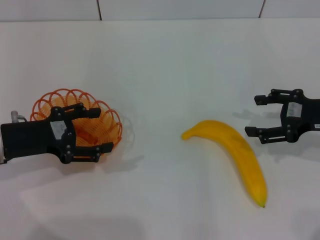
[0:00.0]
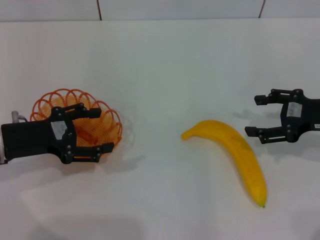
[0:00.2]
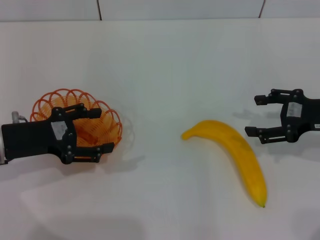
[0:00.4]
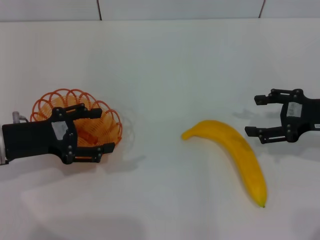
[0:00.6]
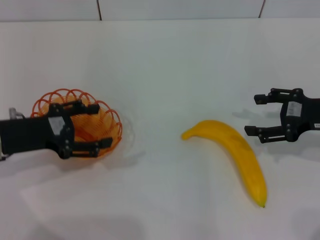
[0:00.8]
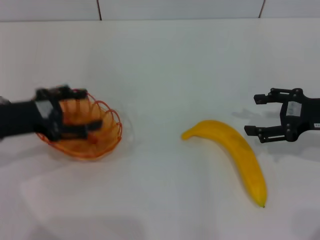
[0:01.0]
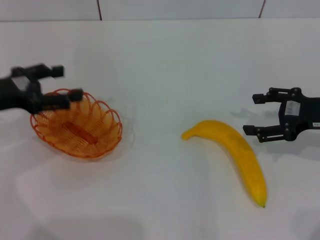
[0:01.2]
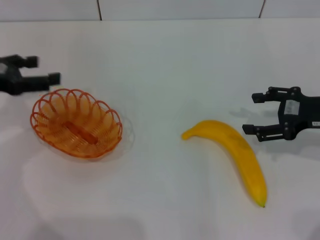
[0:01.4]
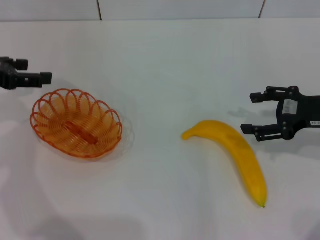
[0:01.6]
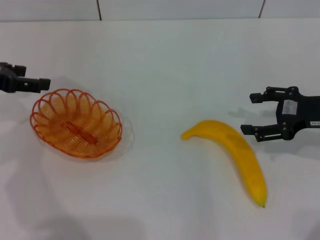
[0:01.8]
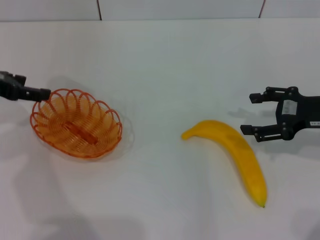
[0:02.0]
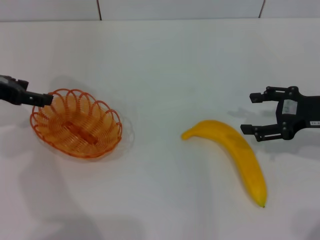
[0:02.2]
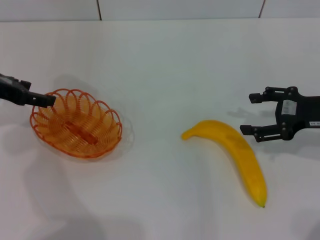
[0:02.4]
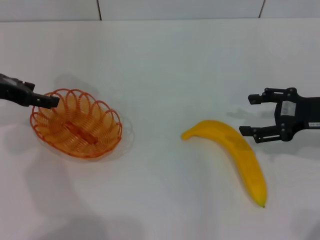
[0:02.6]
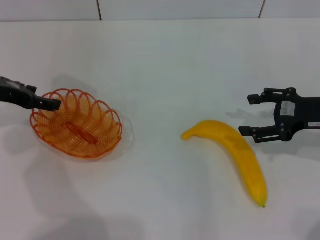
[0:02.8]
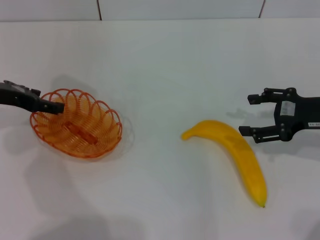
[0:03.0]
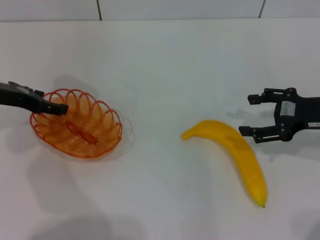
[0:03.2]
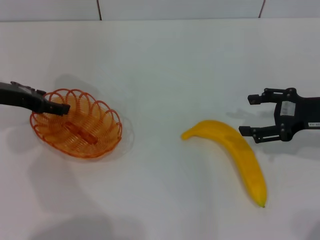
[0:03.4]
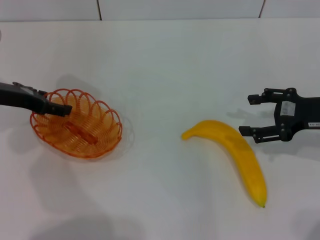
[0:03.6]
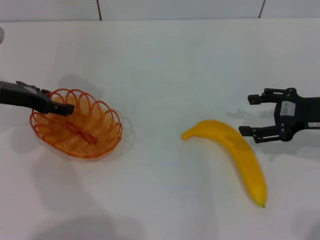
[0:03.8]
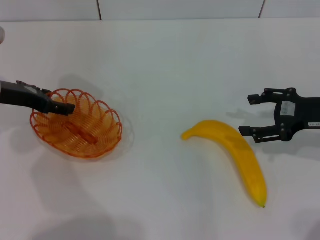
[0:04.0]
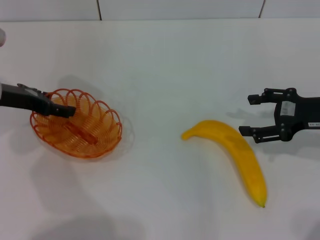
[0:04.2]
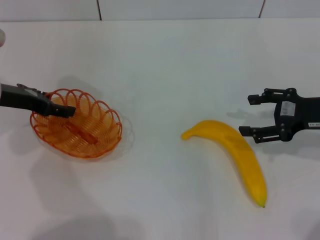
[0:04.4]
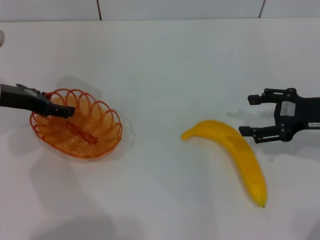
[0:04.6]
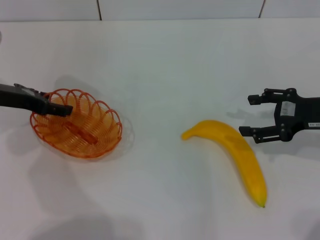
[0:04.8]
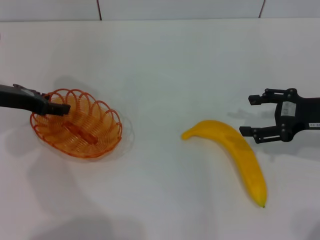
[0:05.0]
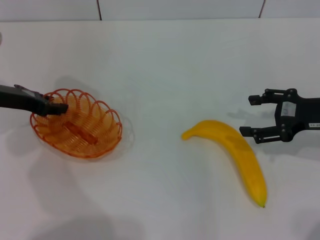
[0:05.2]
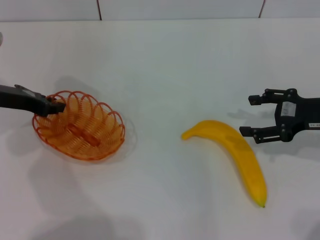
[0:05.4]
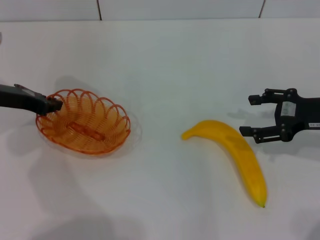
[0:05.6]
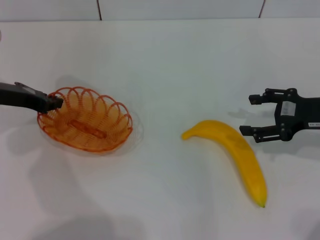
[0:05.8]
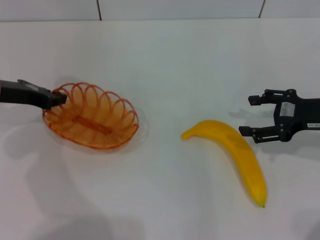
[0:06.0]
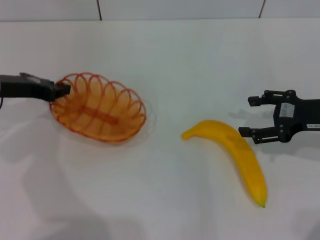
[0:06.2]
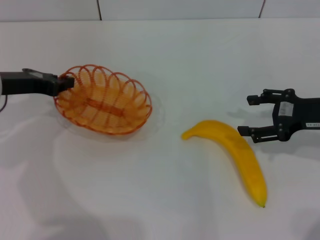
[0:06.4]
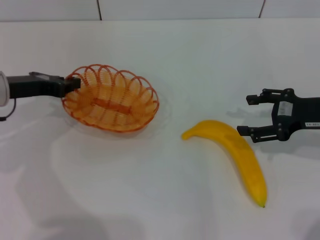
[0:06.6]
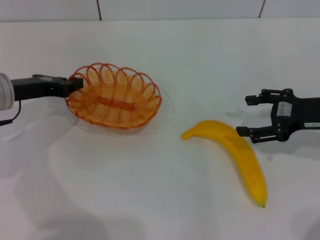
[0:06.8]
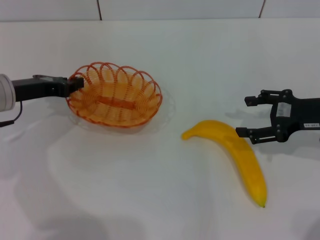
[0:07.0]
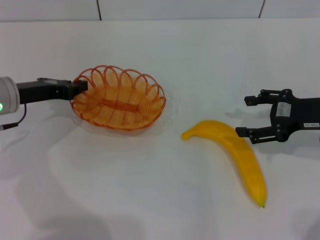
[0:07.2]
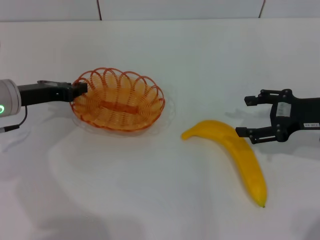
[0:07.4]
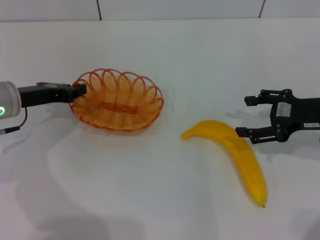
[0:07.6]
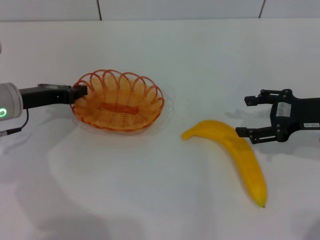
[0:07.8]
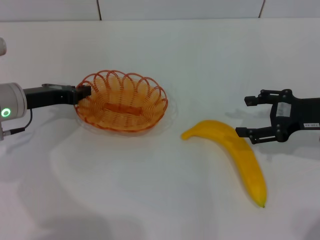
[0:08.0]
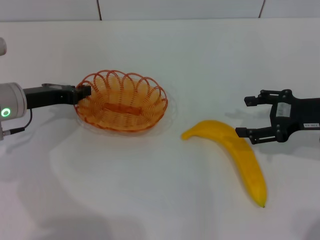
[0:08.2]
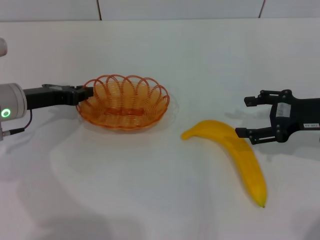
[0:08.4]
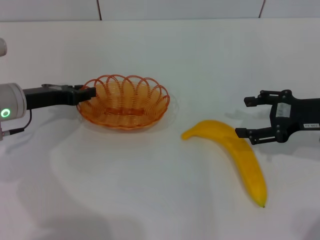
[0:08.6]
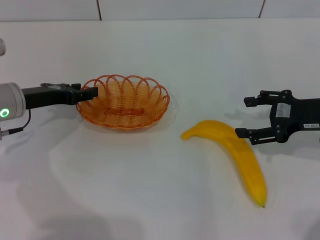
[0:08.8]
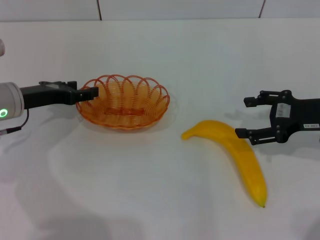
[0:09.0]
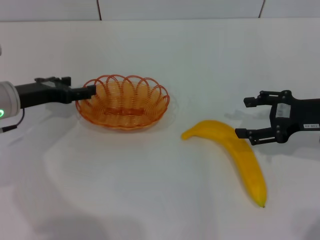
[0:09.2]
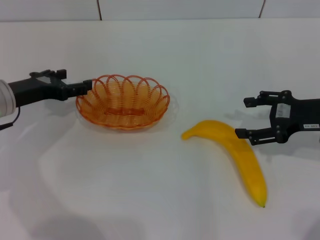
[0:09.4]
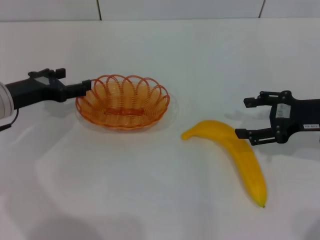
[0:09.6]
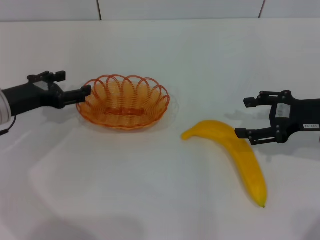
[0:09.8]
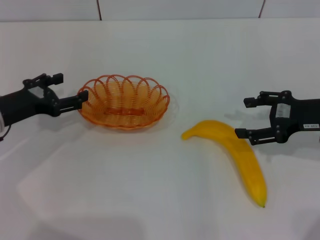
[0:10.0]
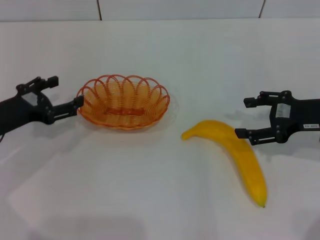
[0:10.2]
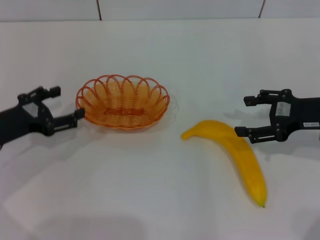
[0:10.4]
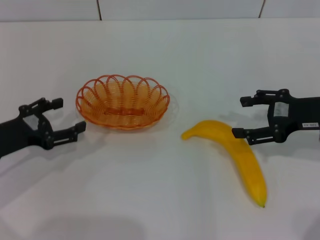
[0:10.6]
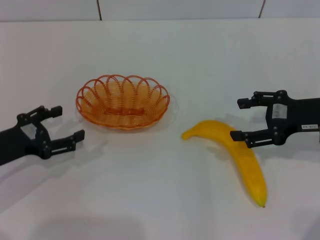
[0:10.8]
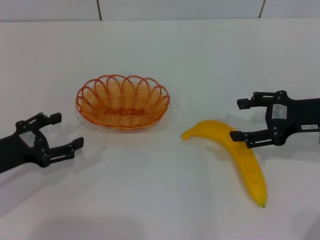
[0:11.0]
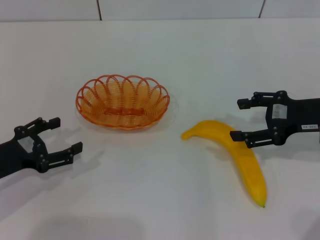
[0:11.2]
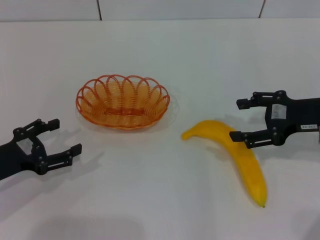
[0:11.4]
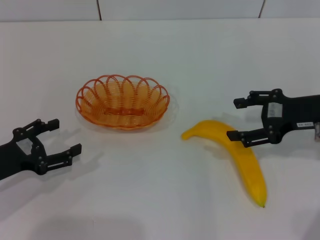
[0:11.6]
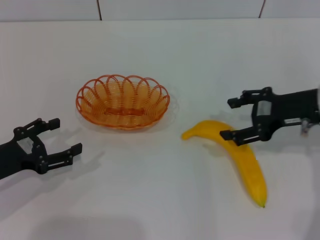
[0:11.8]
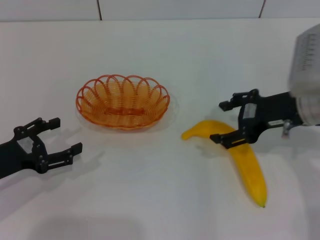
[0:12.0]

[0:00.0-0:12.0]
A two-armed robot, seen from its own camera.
Step, 0:00.0 to 0:06.2: Pick up the basket with the left gripper.
Step, 0:06.4 to 0:09.8: Place the basket in the center of view with the left gripper.
0:00.0 to 0:01.6: The left gripper heads upward, forward and to the left, covering roughly 10 cm.
0:01.6 to 0:03.0: The left gripper ends up some 5 cm from where it was.
0:04.4 to 0:06.0: The left gripper closes its fingers.
0:06.0 to 0:07.6: The grippers make only small movements.
0:07.6 to 0:09.0: The left gripper opens up.
0:09.0 to 0:10.4: The left gripper shifts some 5 cm backward.
0:10.4 to 0:12.0: The right gripper heads to the left, covering about 5 cm. Meanwhile the left gripper changes place by about 5 cm.

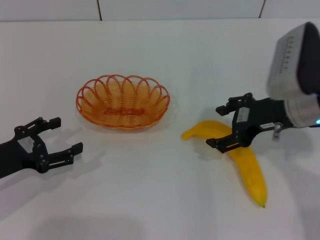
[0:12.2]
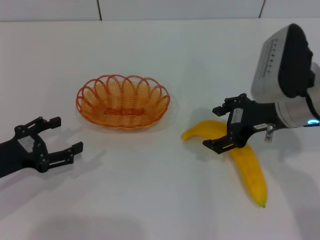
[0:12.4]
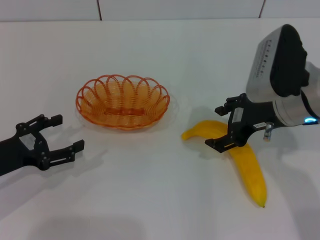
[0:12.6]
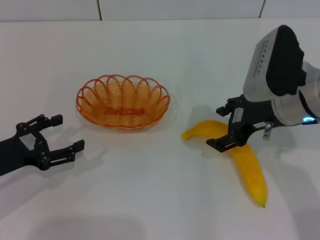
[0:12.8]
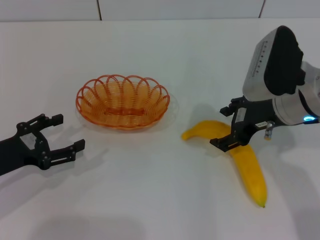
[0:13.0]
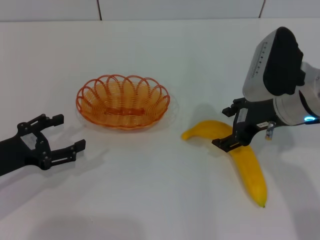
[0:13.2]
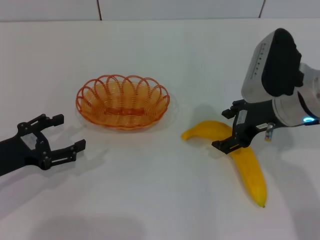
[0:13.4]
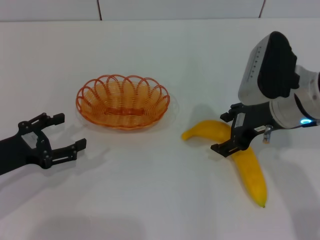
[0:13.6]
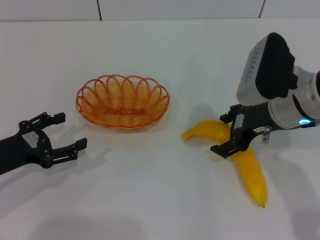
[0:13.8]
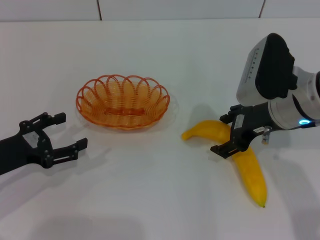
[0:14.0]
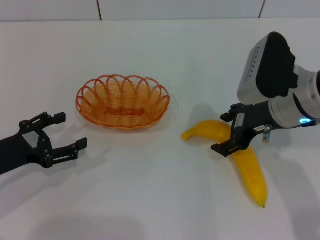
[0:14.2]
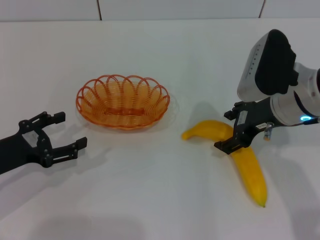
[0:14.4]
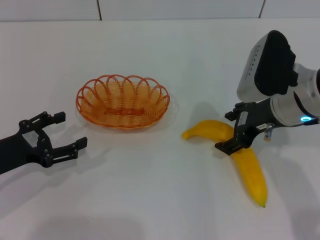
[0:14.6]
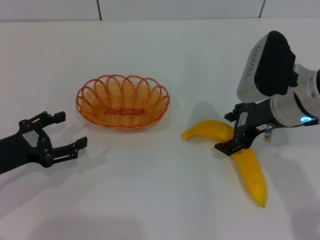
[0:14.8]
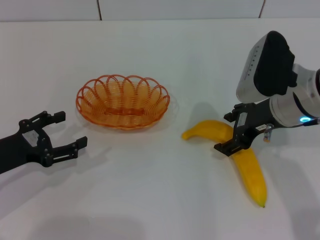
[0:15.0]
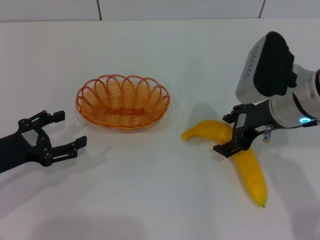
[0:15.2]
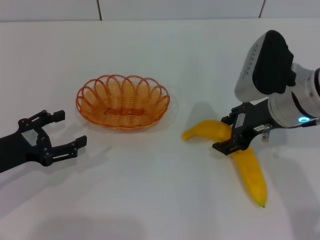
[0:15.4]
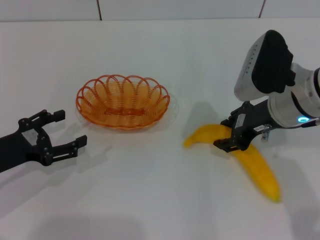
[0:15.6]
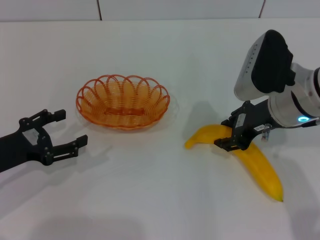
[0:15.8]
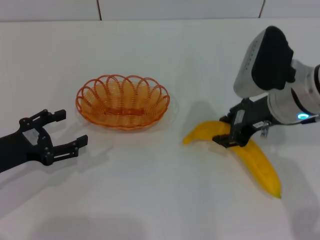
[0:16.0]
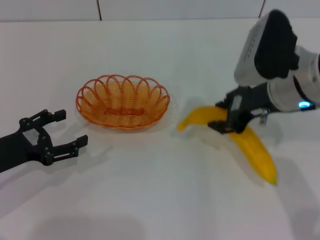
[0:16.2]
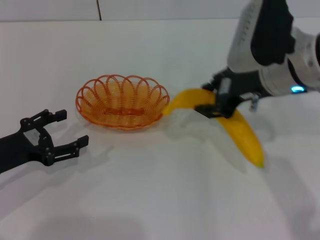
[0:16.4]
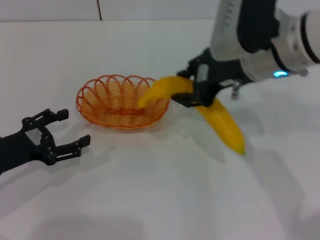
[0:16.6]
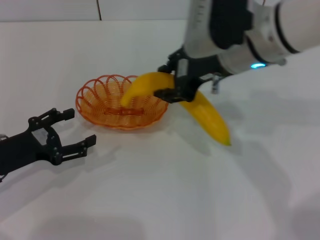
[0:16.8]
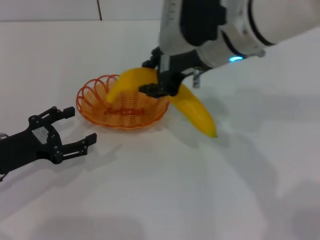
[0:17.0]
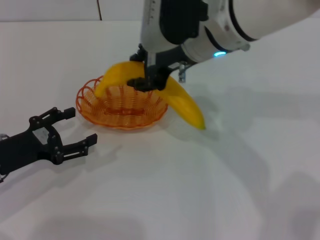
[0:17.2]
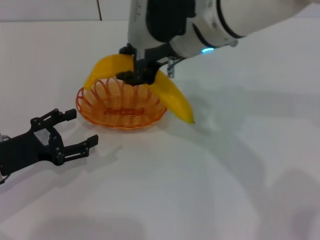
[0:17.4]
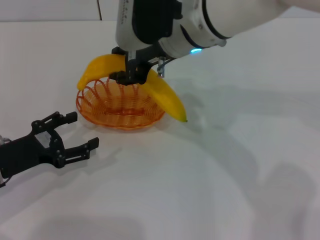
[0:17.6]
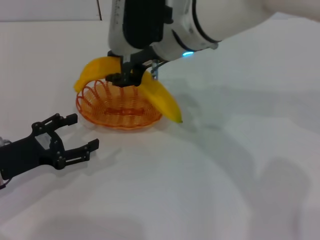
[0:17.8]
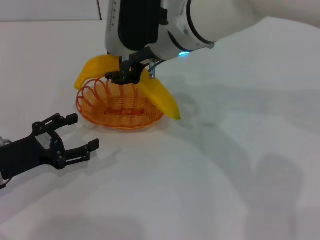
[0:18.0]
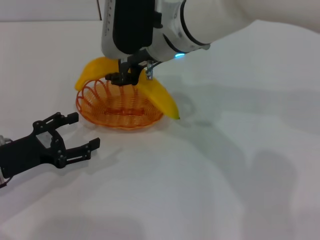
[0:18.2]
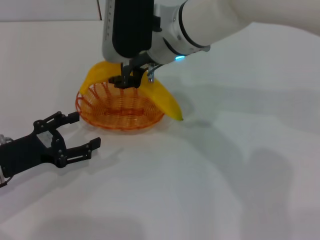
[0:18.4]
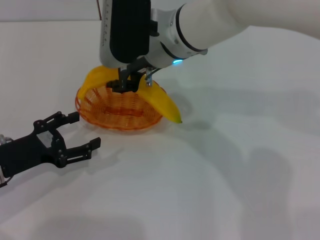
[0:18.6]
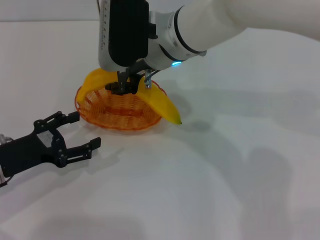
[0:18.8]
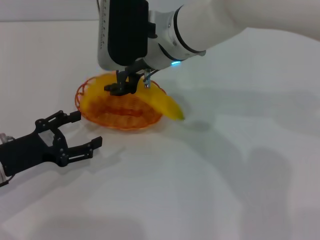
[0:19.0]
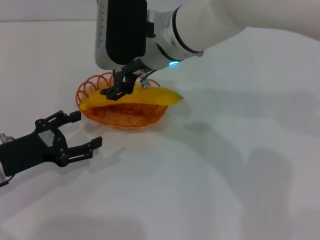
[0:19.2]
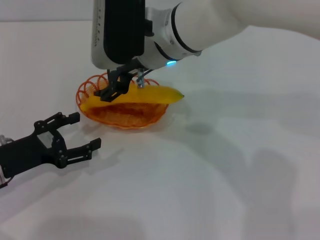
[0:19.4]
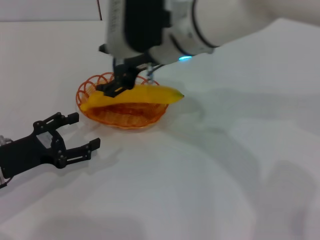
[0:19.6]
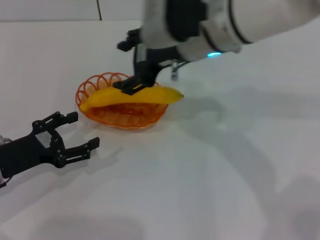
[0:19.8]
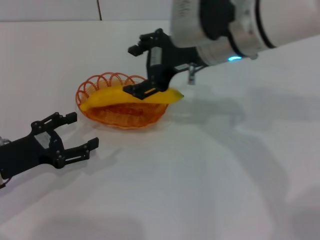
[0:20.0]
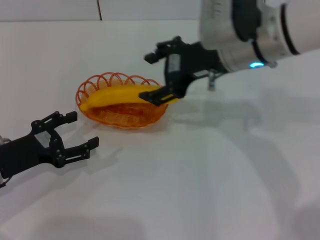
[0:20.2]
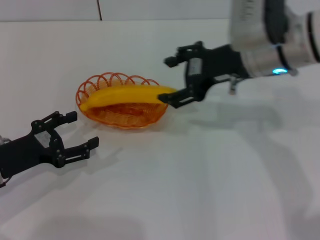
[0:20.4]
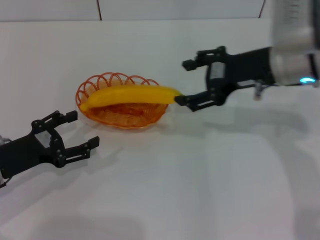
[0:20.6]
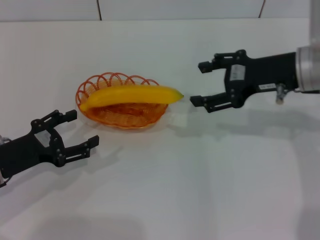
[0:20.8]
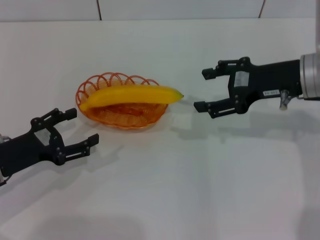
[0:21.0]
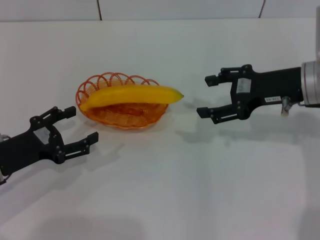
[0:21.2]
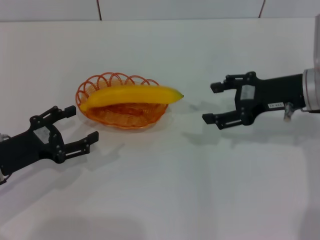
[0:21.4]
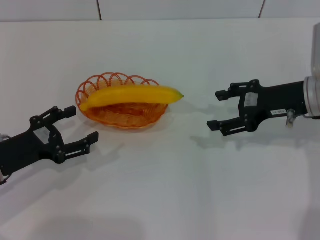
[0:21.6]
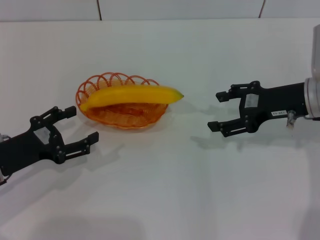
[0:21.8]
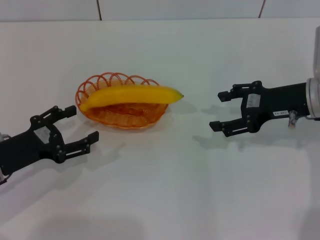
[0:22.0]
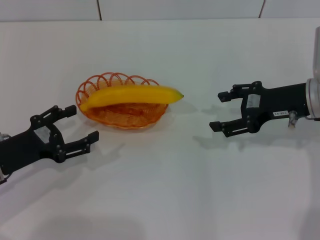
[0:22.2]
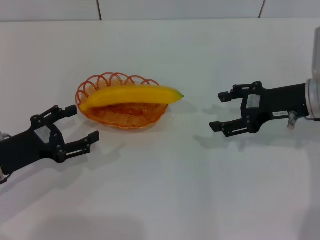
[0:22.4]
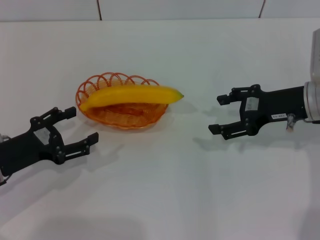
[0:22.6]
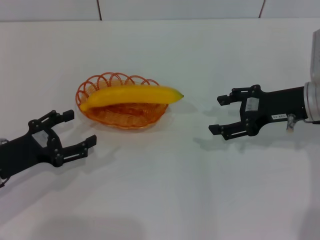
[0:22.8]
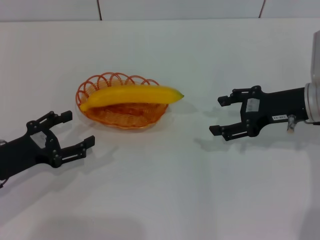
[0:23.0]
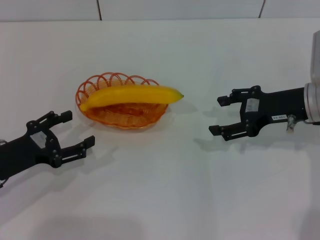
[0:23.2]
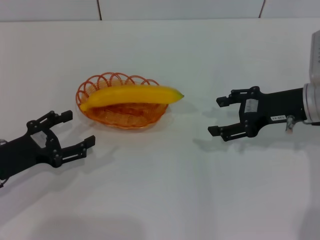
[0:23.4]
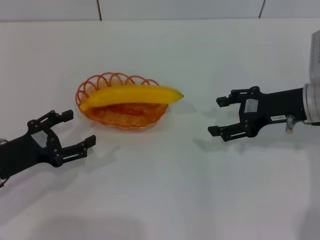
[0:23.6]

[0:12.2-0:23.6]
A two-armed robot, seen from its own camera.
Step, 0:12.2 to 0:16.4: Pick up the banana with the right gripper.
Step, 0:16.6 to 0:19.8: Place the banana into the basket with the right gripper.
0:12.2 to 0:13.6: The grippers move only a little.
0:13.6 to 0:15.0: Neither gripper changes place.
0:15.0 to 0:16.4: The right gripper heads upward, covering some 5 cm, and closes up.
0:16.4 to 0:17.8: The right gripper goes approximately 15 cm to the left.
0:17.8 to 0:19.4: The right gripper opens.
0:19.4 to 0:20.8: The right gripper travels to the right by approximately 20 cm.
0:20.8 to 0:22.2: The right gripper moves some 5 cm.
0:22.2 to 0:23.6: Neither gripper changes place.
